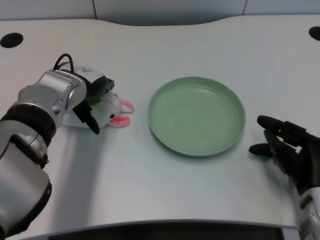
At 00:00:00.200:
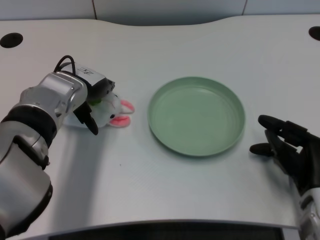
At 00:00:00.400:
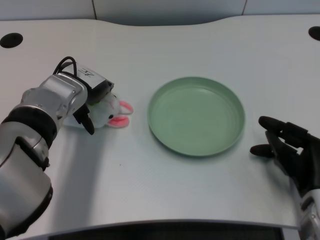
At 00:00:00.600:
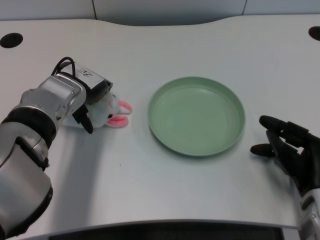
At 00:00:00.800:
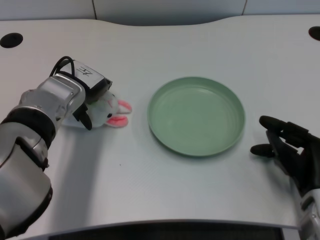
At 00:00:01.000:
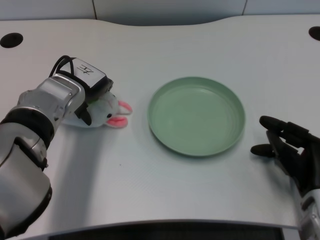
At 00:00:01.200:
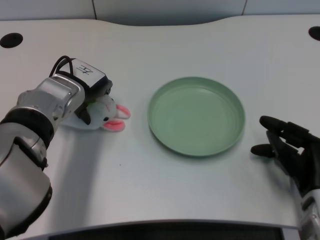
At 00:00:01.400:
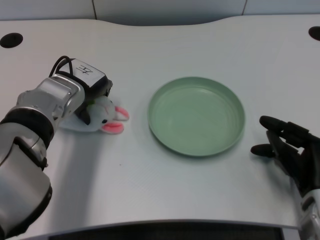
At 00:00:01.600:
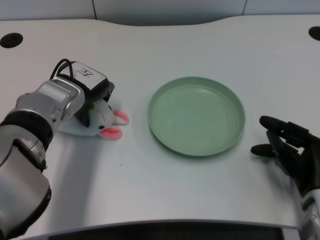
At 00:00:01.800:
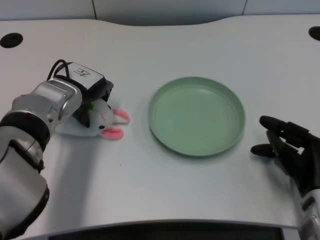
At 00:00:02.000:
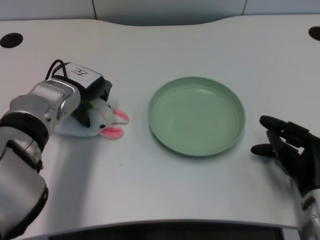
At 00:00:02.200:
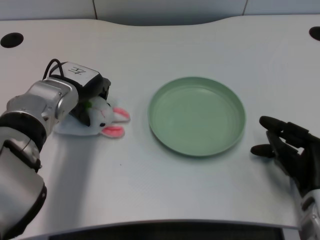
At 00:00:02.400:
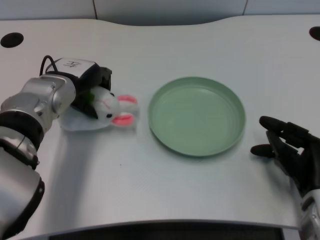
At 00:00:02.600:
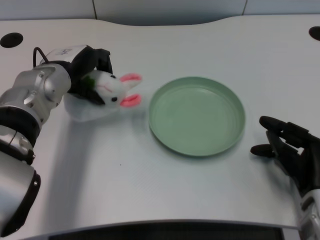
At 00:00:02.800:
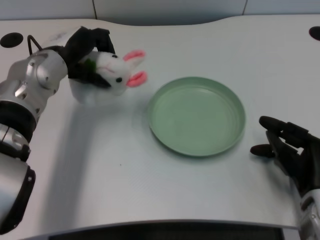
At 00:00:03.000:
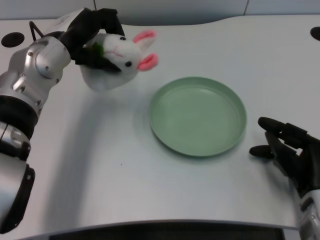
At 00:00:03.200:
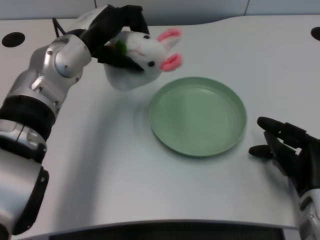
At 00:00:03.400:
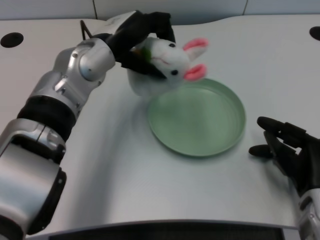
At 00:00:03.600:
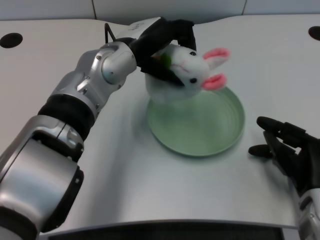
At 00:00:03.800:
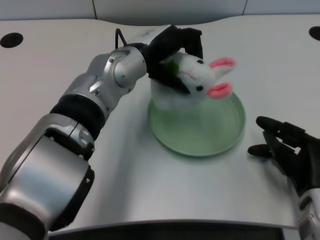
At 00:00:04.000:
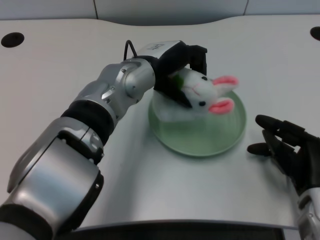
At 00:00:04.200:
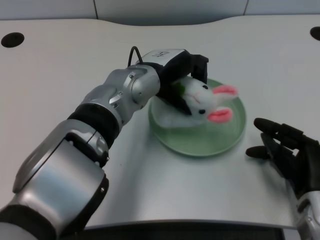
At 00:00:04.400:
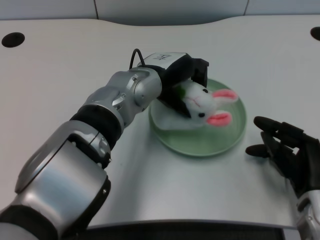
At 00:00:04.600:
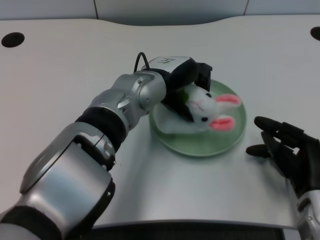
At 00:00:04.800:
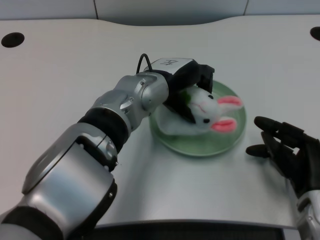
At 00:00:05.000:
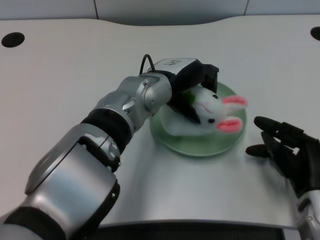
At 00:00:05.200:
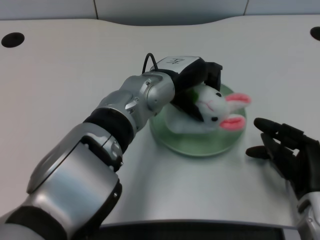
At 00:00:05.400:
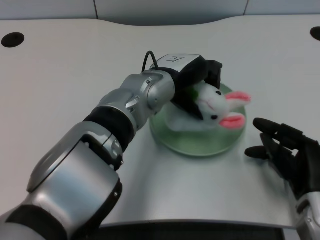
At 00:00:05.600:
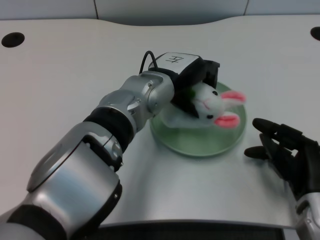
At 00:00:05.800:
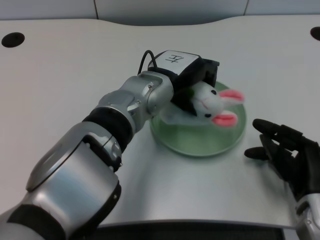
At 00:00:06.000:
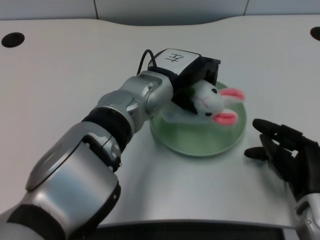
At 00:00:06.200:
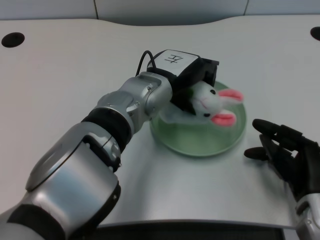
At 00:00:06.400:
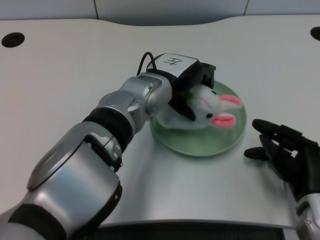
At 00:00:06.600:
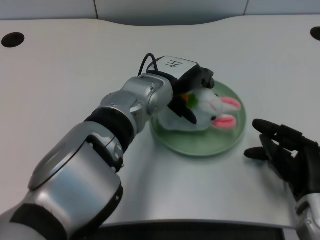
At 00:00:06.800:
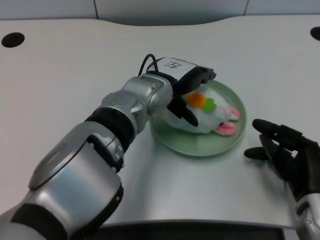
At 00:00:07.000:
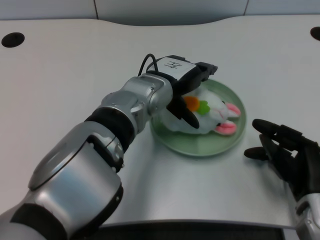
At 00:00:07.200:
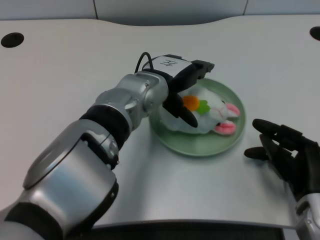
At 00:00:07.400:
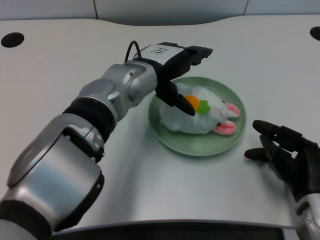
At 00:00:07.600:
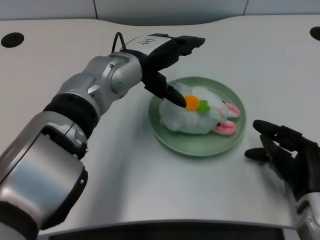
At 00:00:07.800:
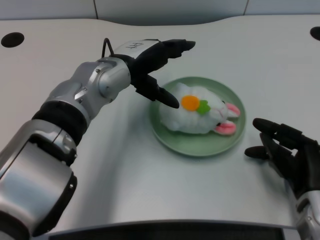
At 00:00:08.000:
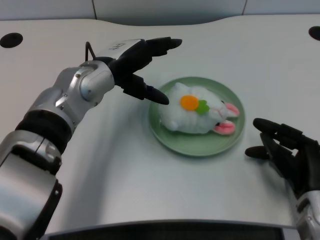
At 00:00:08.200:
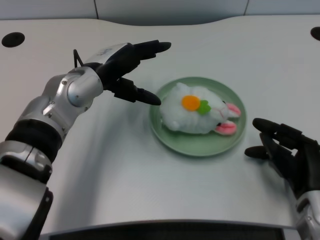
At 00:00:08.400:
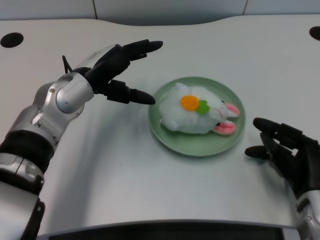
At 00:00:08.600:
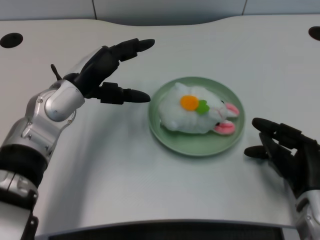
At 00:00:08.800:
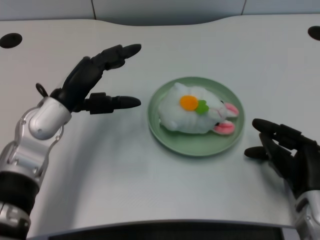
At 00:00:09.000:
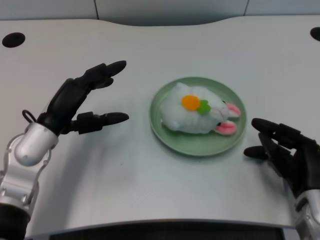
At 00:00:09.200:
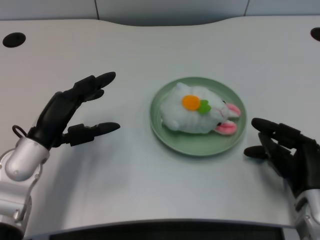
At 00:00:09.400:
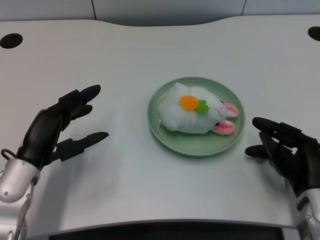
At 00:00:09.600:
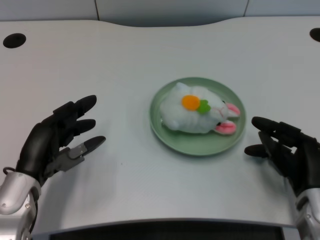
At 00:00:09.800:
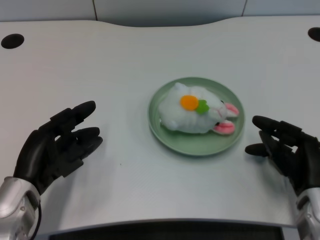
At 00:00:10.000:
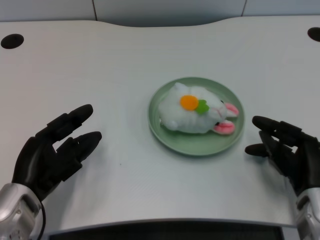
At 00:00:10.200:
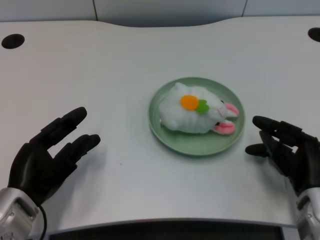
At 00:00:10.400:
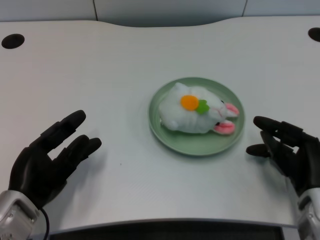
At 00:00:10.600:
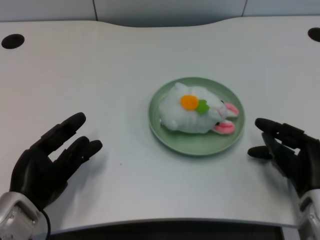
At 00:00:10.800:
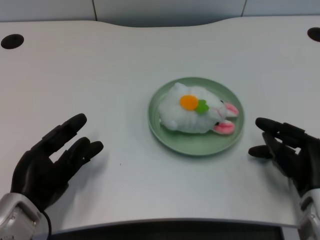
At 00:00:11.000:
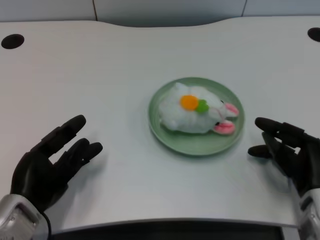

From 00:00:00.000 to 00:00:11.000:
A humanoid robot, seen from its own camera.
Task of the whole recording: pick up the rabbit doll from the table and place it on the plate.
Step, from 00:00:00.000 to 00:00:02.400: Grasp the rabbit doll with the left gripper.
Step, from 00:00:02.600 to 00:00:07.000: Place the rabbit doll into the plate with the left gripper.
From 00:00:00.000 to 00:00:01.600: The hands make only small movements.
From 00:00:01.600 to 00:00:03.200: The left hand goes approximately 5 cm upward.
From 00:00:03.200 to 00:00:04.800: The left hand goes approximately 10 cm to the right.
From 00:00:04.800 to 00:00:06.200: The hands stay close to where they were, moving slightly.
From 00:00:06.200 to 00:00:07.800: The left hand is displaced to the left by about 5 cm.
From 00:00:07.800 to 00:00:09.400: The left hand goes some 20 cm backward, to the left and downward.

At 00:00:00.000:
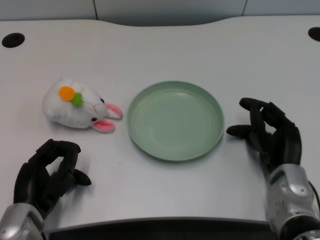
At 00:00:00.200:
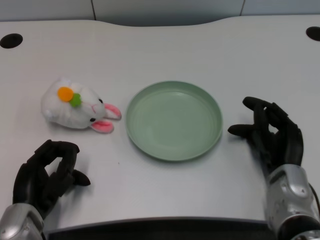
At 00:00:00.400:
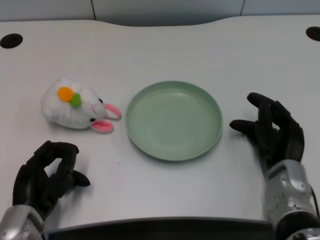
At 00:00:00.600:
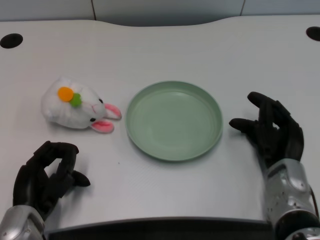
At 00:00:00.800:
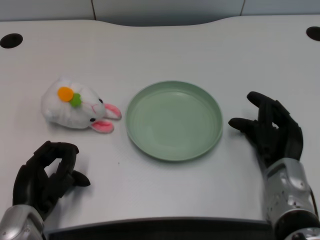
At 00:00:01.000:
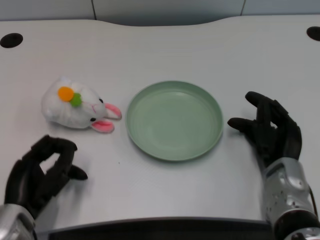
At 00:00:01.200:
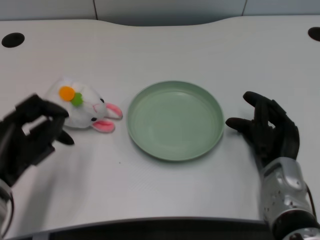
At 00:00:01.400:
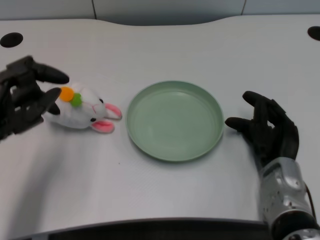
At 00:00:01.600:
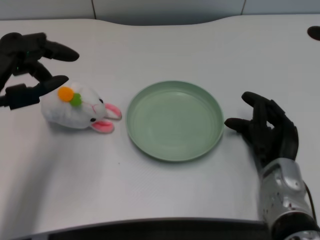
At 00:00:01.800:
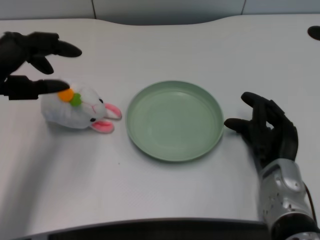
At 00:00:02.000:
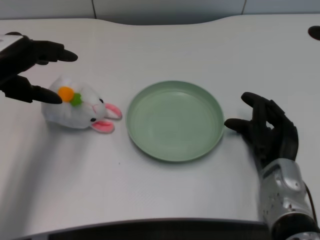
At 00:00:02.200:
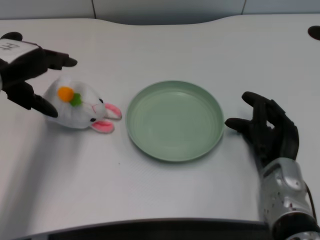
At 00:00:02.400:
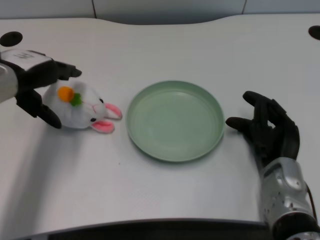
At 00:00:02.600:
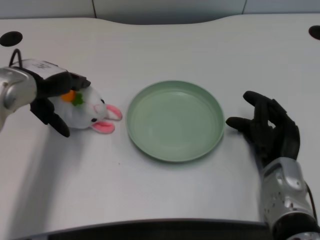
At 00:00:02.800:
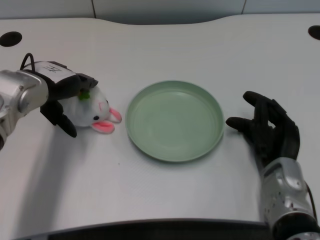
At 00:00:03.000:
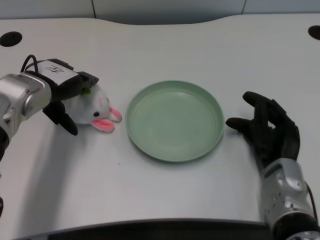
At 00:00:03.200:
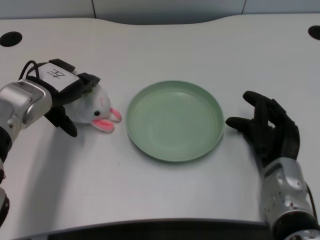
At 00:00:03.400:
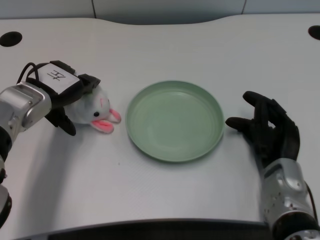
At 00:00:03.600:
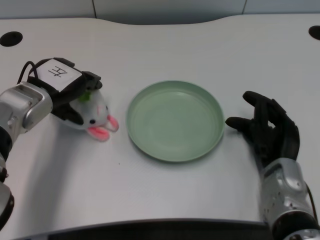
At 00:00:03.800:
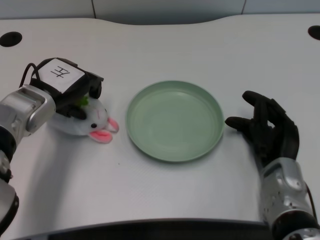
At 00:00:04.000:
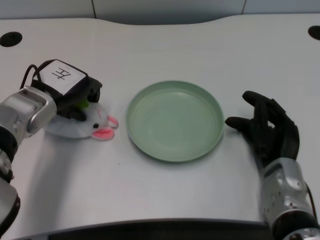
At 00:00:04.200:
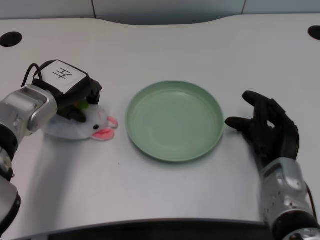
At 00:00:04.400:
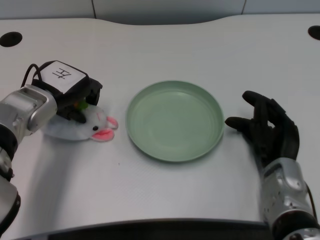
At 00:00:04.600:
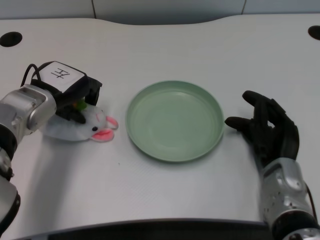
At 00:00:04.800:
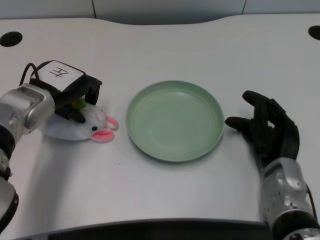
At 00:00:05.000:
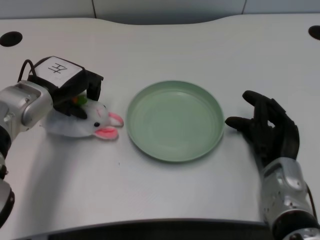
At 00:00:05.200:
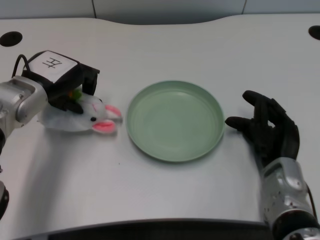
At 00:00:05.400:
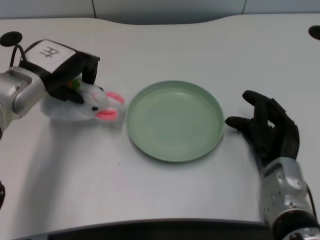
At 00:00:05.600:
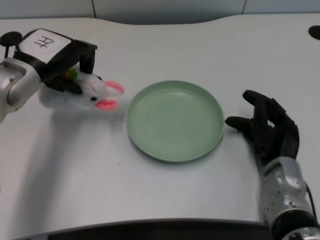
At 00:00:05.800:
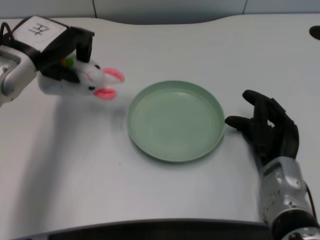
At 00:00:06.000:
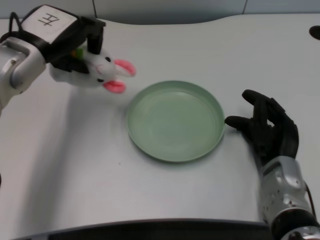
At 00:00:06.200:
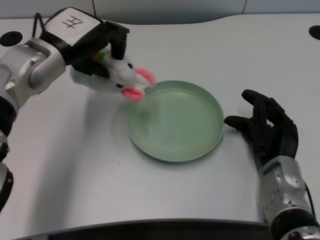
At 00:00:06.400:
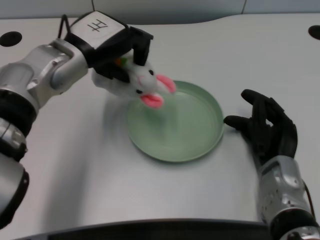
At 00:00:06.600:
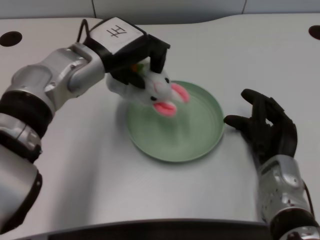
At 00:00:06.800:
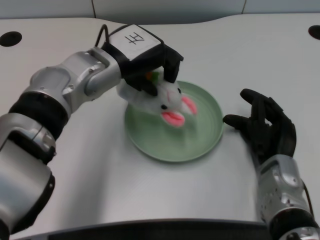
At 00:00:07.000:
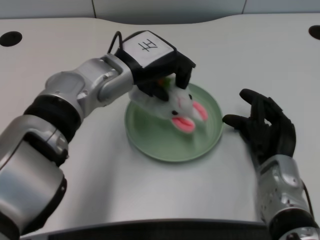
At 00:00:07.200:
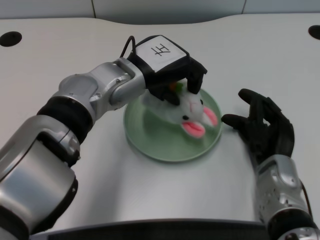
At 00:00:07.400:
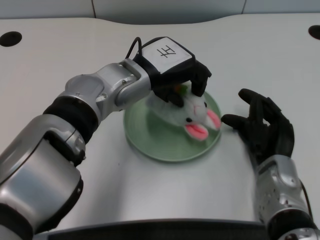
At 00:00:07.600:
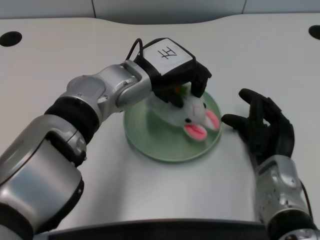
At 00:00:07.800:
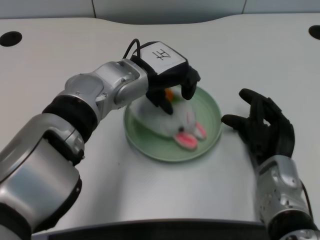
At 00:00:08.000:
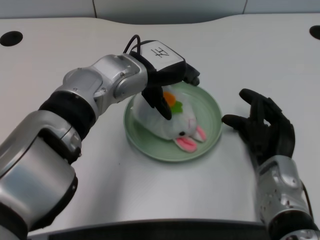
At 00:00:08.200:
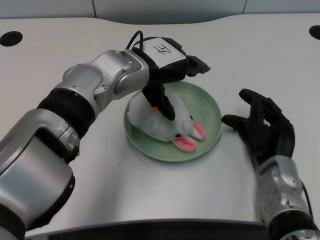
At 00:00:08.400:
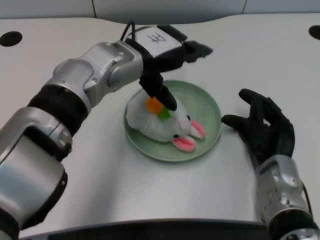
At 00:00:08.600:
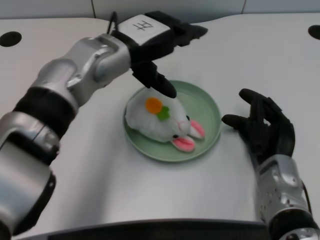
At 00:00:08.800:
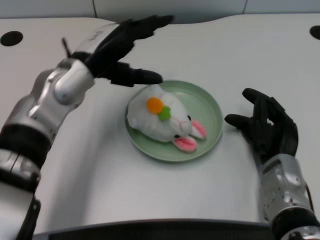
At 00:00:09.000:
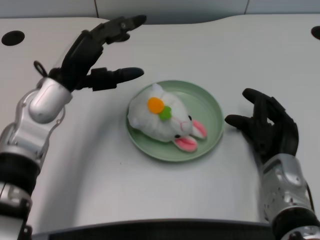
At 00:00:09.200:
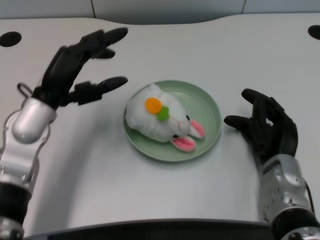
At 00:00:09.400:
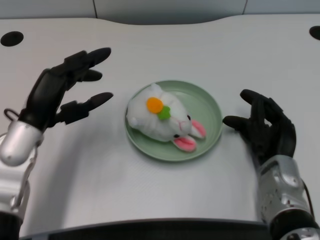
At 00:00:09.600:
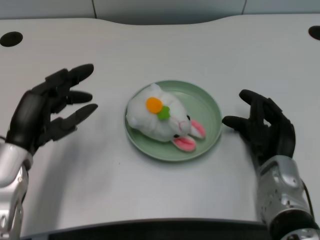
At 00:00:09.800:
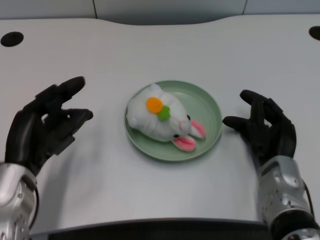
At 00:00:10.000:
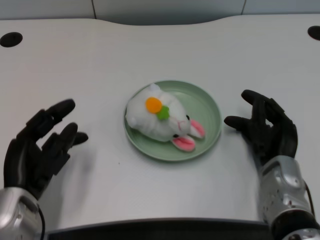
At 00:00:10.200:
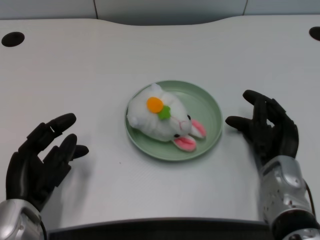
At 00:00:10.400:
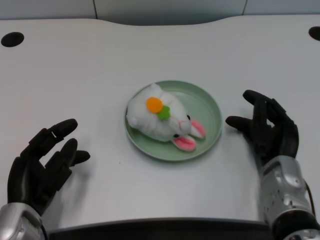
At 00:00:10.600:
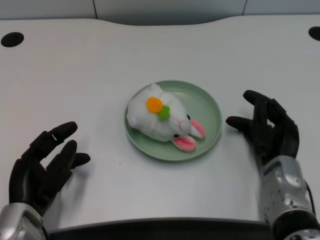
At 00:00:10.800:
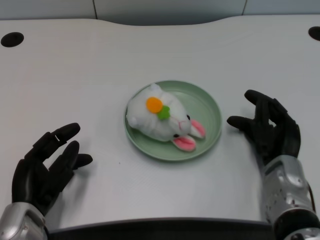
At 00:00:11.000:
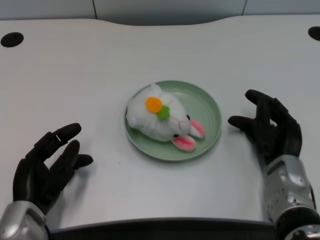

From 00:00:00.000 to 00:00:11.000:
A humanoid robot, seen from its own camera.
Task of the whole recording: pick up the rabbit doll from the table and place it on the plate.
Step, from 00:00:01.000 to 00:00:05.000: Grasp the rabbit doll with the left gripper.
Step, from 00:00:05.200 to 00:00:08.000: Place the rabbit doll into the plate with the left gripper.
From 00:00:01.600 to 00:00:03.200: The left hand heads forward and downward, covering roughly 10 cm.
From 00:00:03.200 to 00:00:04.800: The hands move only a little.
From 00:00:04.800 to 00:00:06.200: The left hand is displaced upward by about 5 cm.
From 00:00:06.200 to 00:00:07.800: The left hand goes about 10 cm to the right.
From 00:00:07.800 to 00:00:09.400: The left hand shifts roughly 15 cm to the left and backward.
From 00:00:09.400 to 00:00:11.000: The left hand is displaced backward and downward by about 10 cm.
